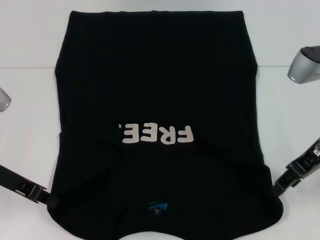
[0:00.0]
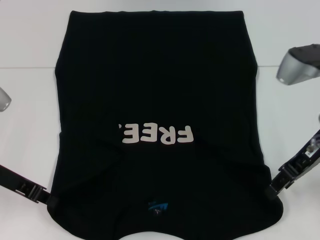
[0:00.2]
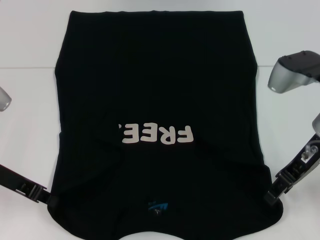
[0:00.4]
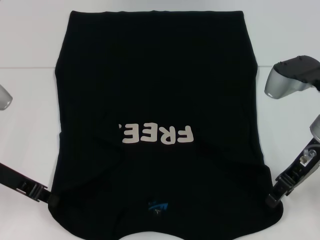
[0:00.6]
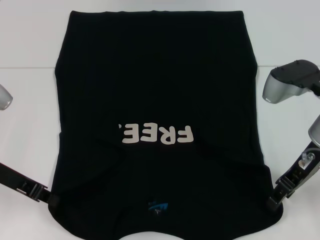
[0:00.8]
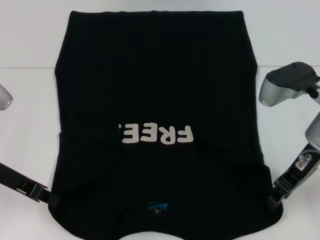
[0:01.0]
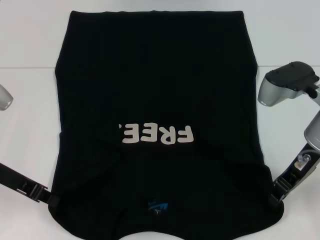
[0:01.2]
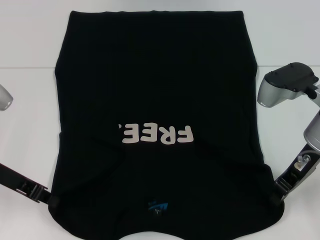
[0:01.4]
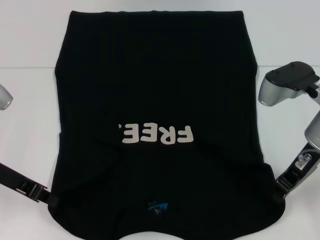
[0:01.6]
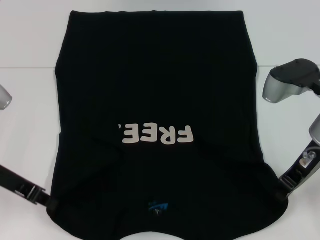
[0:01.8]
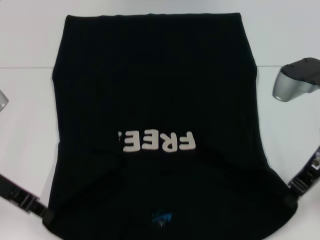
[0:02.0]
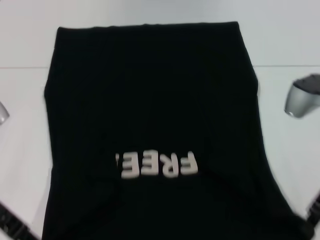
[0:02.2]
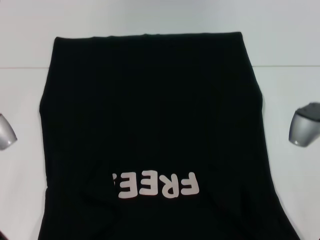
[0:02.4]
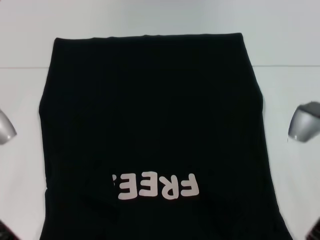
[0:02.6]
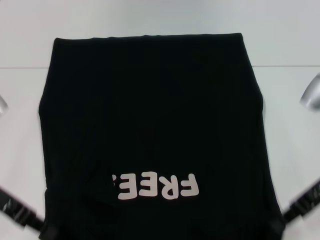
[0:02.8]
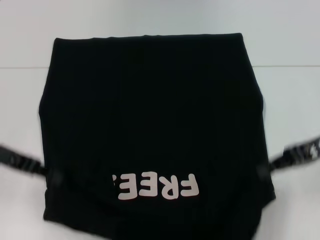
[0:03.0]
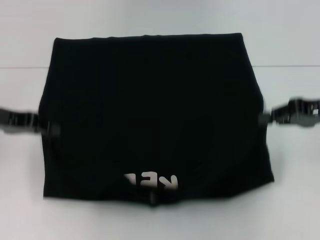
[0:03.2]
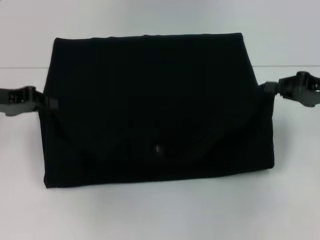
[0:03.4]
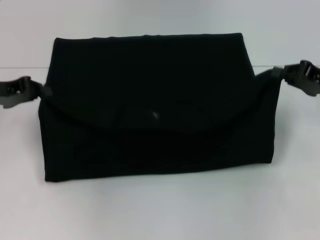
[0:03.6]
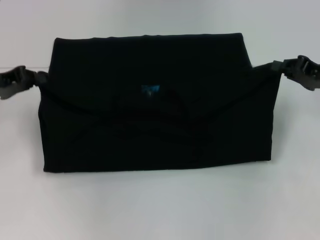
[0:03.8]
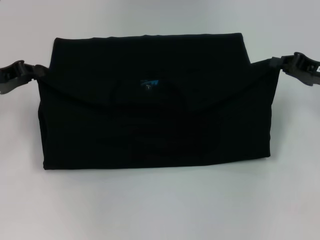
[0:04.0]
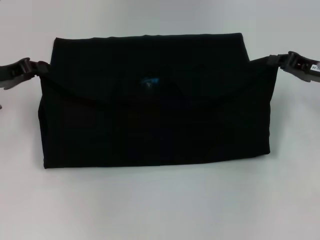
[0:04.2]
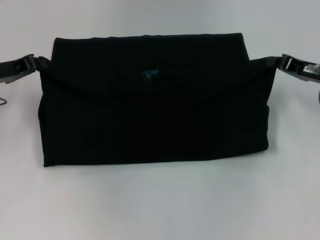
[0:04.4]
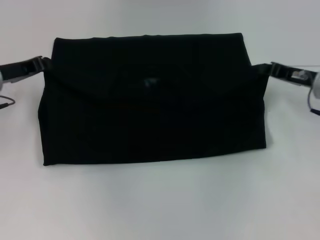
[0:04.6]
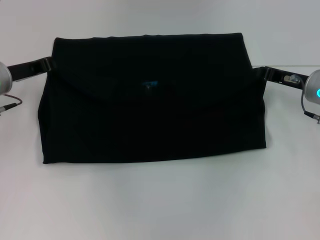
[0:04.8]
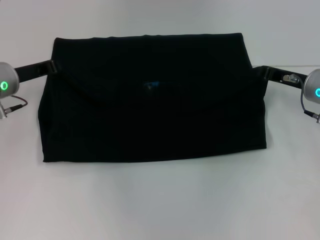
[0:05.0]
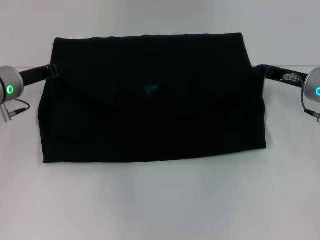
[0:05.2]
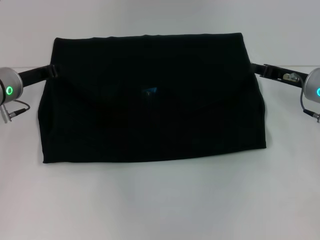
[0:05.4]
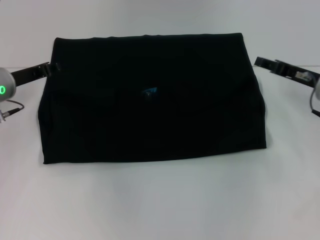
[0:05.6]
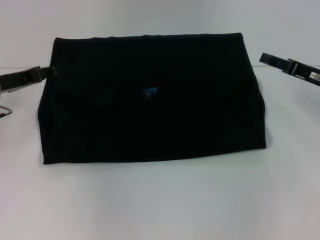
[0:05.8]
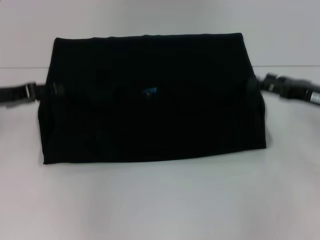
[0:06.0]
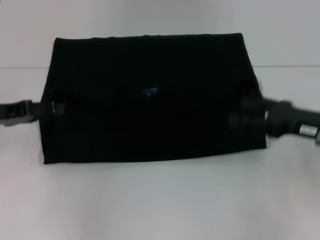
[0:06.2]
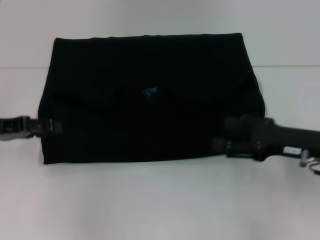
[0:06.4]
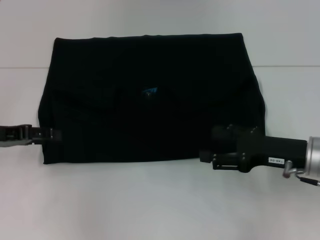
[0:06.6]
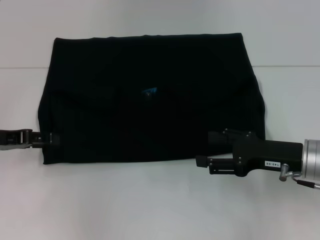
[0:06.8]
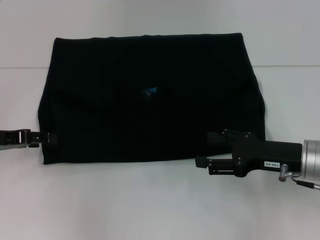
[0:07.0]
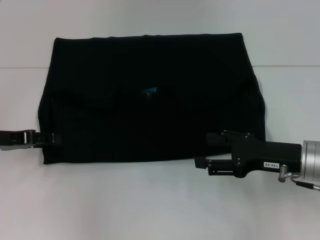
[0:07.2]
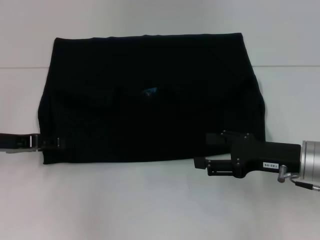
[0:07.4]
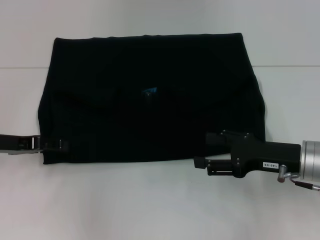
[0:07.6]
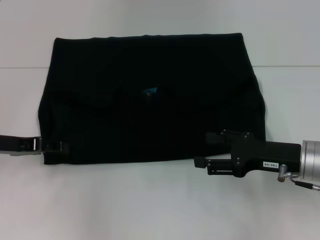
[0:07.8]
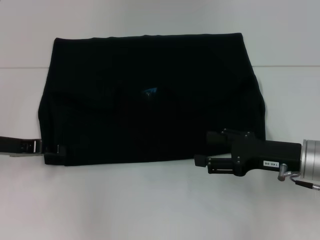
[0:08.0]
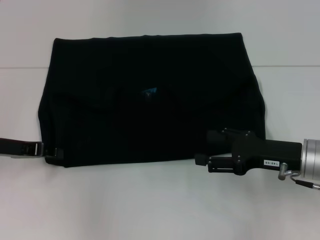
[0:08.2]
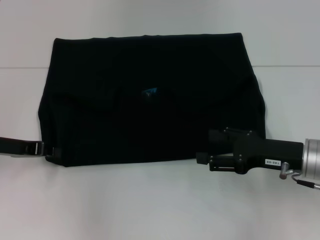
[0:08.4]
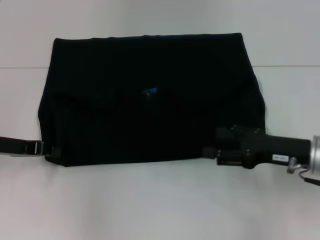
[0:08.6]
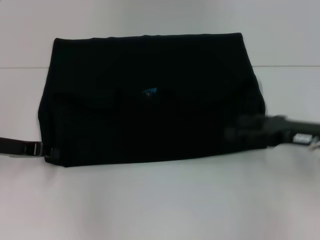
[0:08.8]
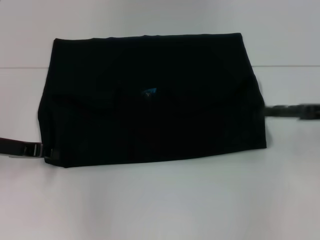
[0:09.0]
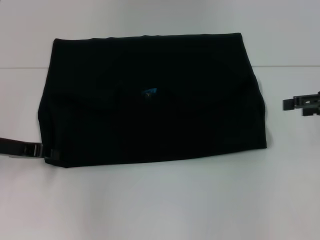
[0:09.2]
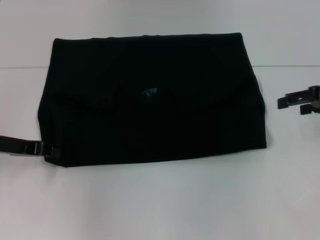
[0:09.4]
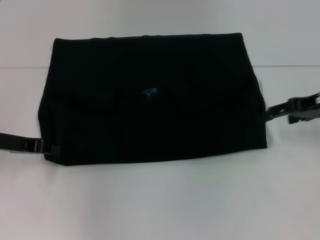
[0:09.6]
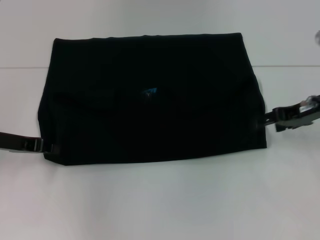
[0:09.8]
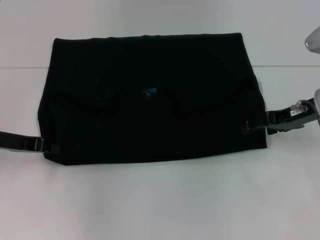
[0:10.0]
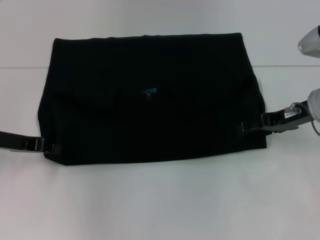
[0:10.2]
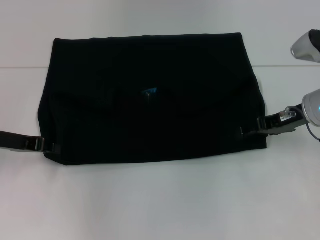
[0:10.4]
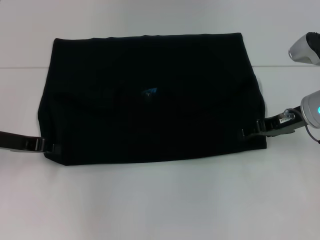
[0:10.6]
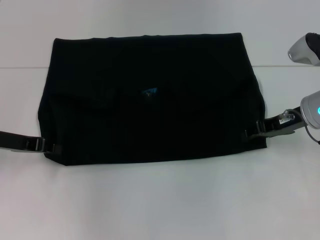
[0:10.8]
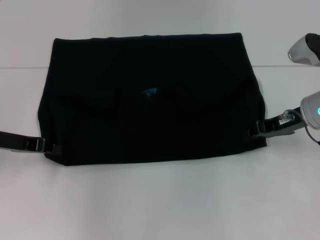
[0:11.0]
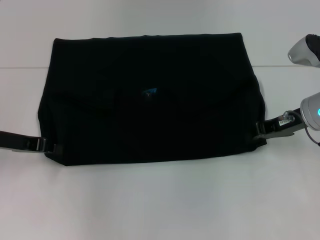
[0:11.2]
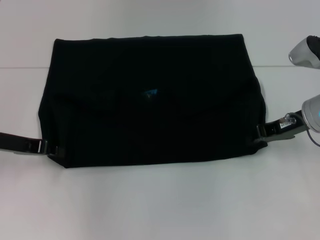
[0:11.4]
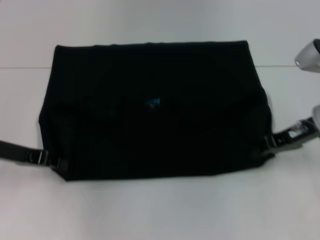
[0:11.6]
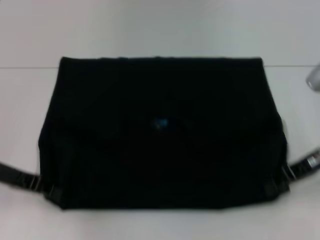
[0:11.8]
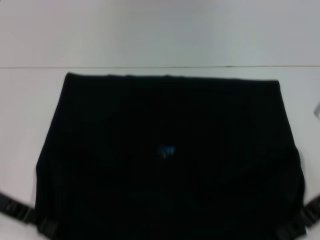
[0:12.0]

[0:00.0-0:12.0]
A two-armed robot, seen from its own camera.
Step, 0:01.8 to 0:05.4: Fold the clothes with your left hand.
Step, 0:01.8 to 0:05.4: Fold the clothes with your right hand.
0:00.0 to 0:01.6: The grippers make only small movements.
0:01.6 to 0:03.0: The right gripper heads to the right, covering about 5 cm.
0:03.0 to 0:04.4: The two grippers go approximately 5 cm forward.
0:04.4 to 0:06.0: The right gripper ends up roughly 5 cm from where it was, and opens up. Meanwhile the left gripper opens up.
0:06.0 to 0:07.6: The right gripper shifts approximately 10 cm to the left and backward.
0:07.6 to 0:09.0: The right gripper shifts approximately 10 cm to the right and upward, while the left gripper closes its fingers.
0:09.0 to 0:10.4: The right gripper travels to the left and forward by some 10 cm.
0:10.4 to 0:12.0: The left gripper heads backward, covering some 5 cm. The right gripper goes about 10 cm backward, and closes.

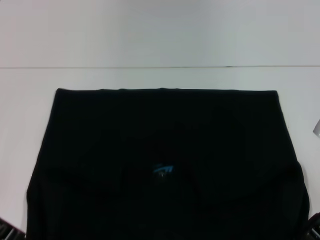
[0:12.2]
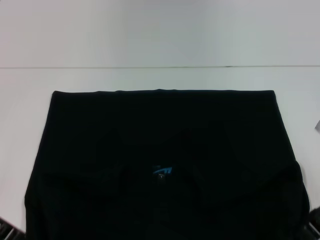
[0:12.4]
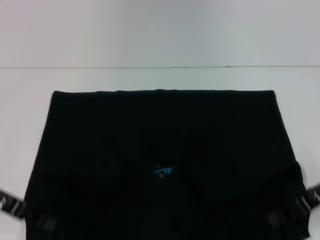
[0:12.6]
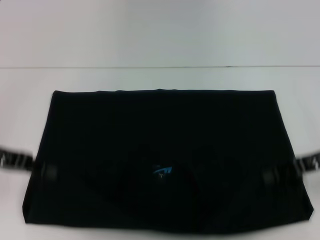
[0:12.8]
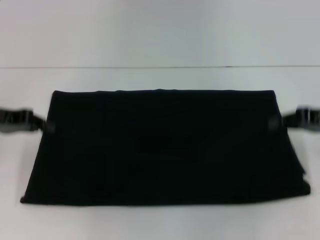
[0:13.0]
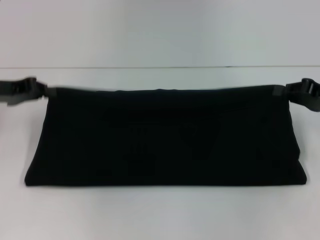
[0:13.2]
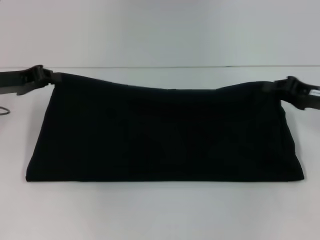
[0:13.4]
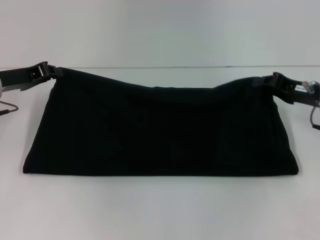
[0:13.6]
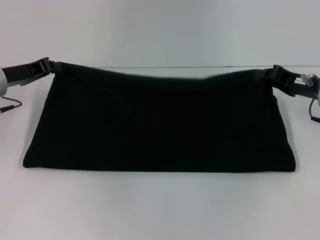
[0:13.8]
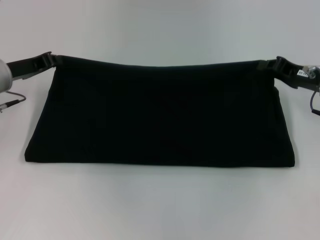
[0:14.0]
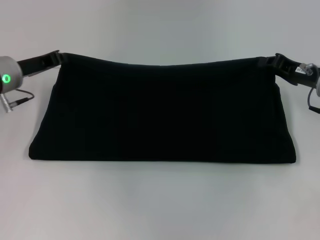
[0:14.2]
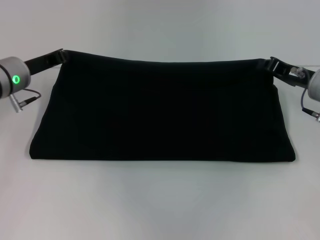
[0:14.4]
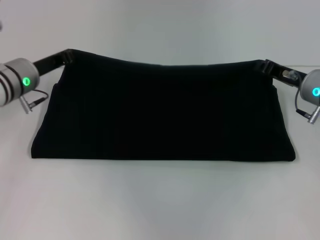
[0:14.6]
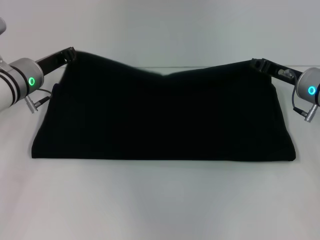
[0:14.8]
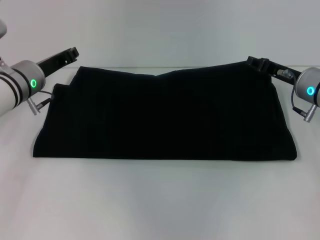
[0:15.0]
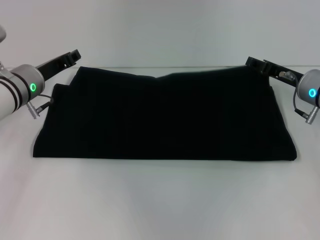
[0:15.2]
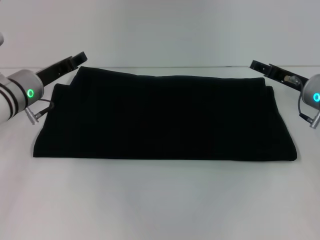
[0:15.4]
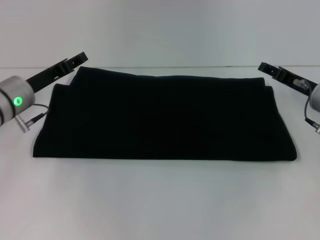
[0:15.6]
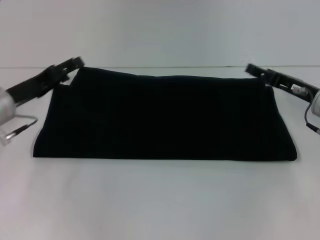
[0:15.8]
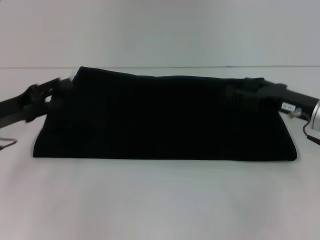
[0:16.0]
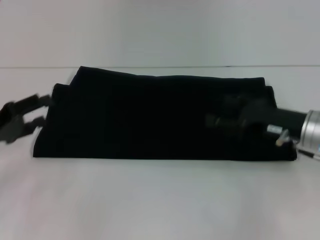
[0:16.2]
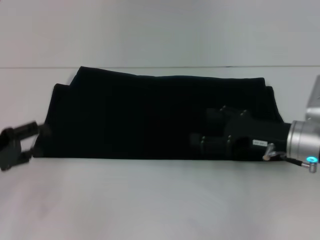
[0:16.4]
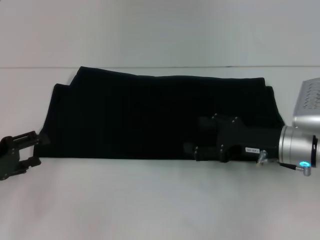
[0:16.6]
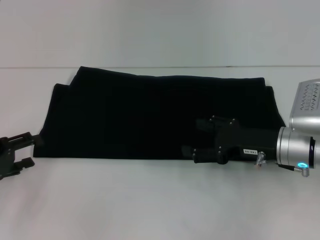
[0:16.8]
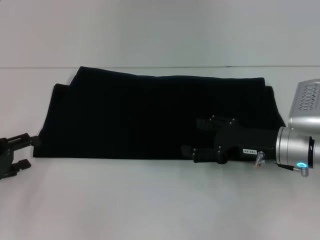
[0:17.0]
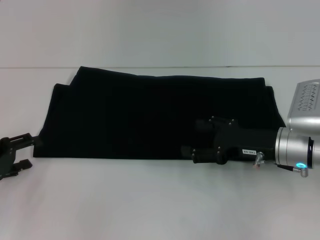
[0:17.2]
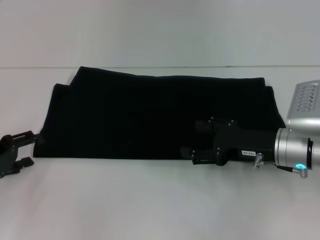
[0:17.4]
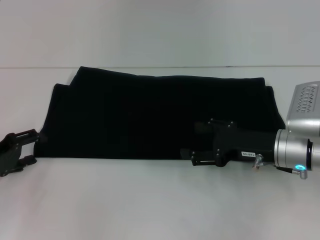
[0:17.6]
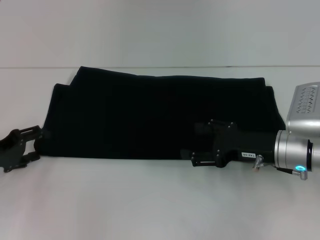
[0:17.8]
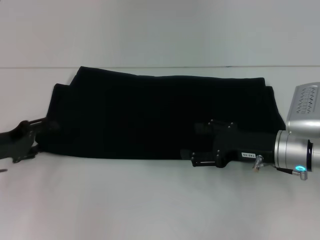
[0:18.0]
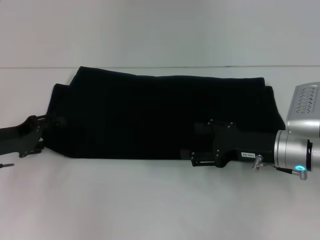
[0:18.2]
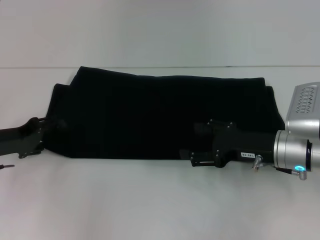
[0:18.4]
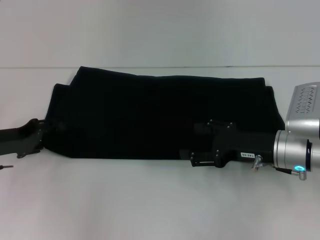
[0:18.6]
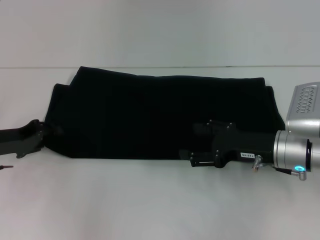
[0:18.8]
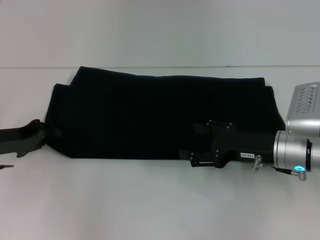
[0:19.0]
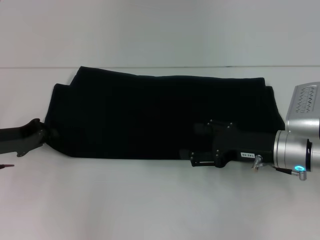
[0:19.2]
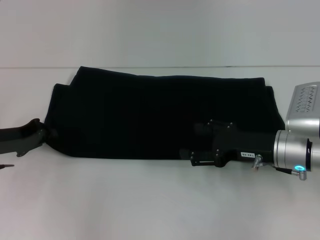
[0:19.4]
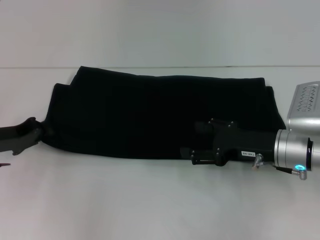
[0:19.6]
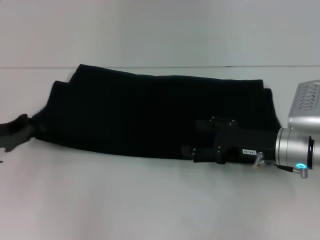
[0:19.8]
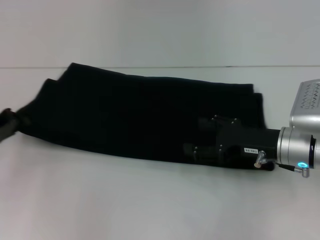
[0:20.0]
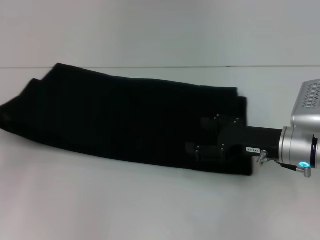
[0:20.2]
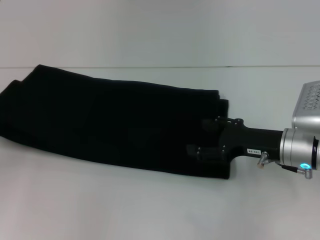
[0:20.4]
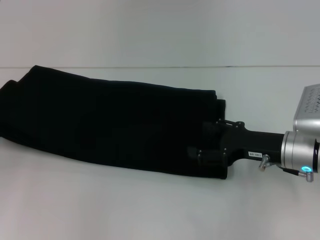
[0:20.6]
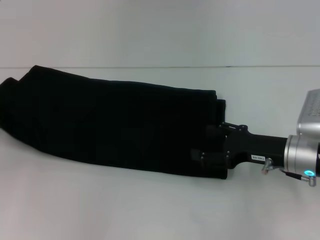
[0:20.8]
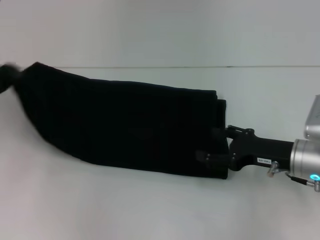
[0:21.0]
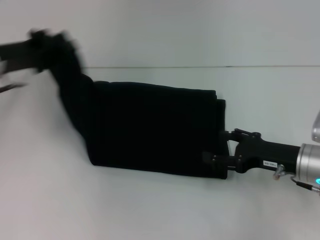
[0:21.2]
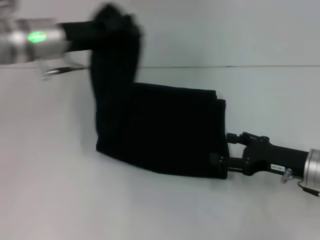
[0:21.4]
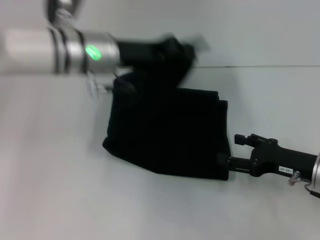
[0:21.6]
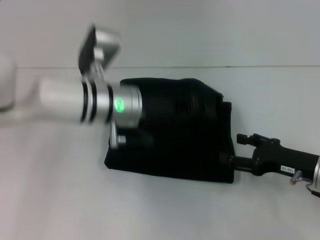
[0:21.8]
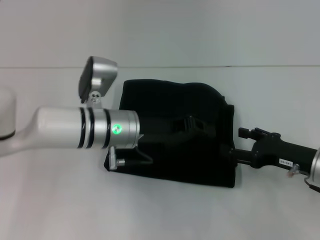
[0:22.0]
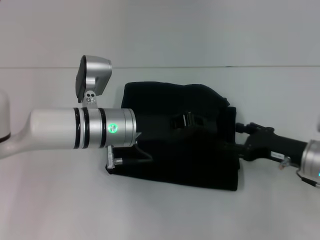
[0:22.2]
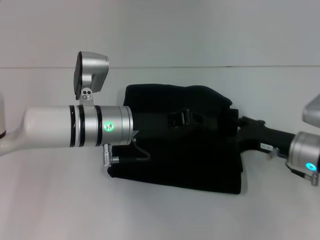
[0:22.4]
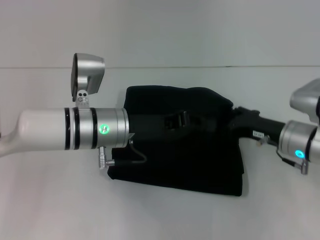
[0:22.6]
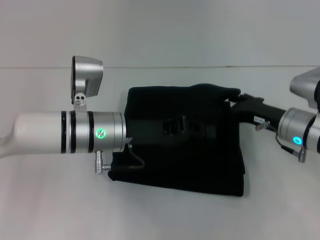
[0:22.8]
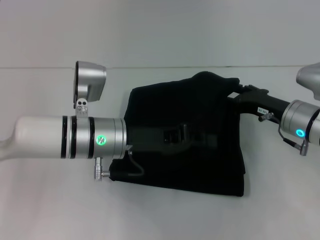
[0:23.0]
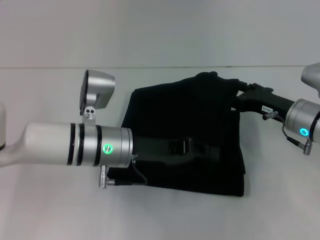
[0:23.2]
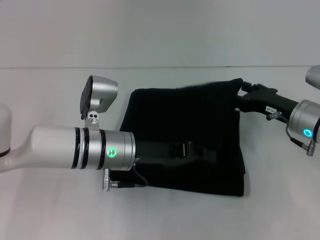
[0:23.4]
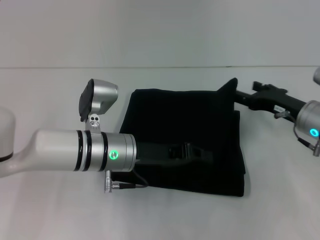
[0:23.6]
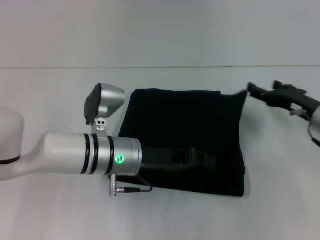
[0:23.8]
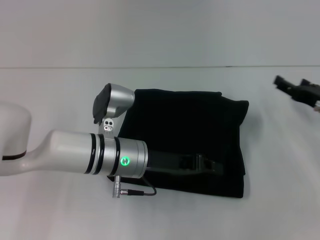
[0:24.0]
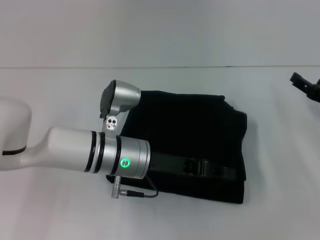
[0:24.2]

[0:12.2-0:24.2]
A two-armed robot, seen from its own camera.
Step, 0:12.4 to 0:15.2: Fold the clothes with your right hand.
0:12.2 to 0:13.8: Both grippers move forward, approximately 10 cm.
0:13.8 to 0:15.2: The right gripper opens, while the left gripper goes approximately 5 cm to the right.
0:15.2 to 0:16.6: The left gripper heads backward and to the left, covering roughly 20 cm, and opens up; the right gripper travels backward by some 10 cm, and opens up.
0:16.6 to 0:18.2: The left gripper travels forward by some 5 cm.
0:18.2 to 0:19.8: The left gripper closes up.
0:19.8 to 0:21.2: The left gripper travels upward and forward by about 10 cm.
0:21.2 to 0:22.6: The left gripper moves to the right, roughly 15 cm.
0:22.6 to 0:24.2: The right gripper is displaced to the right by roughly 10 cm.
